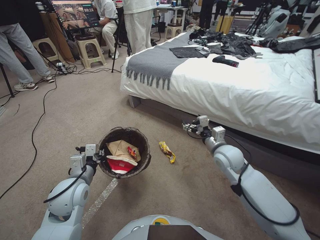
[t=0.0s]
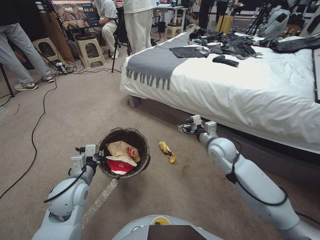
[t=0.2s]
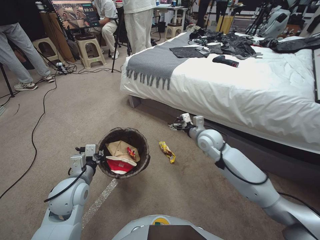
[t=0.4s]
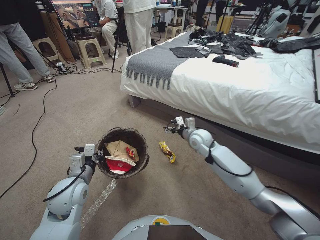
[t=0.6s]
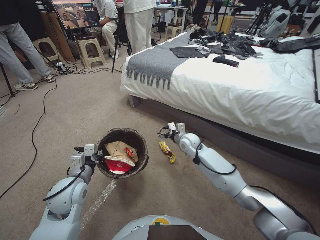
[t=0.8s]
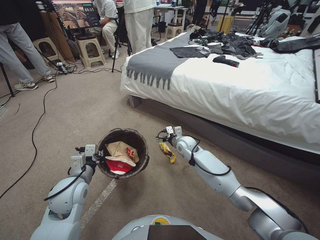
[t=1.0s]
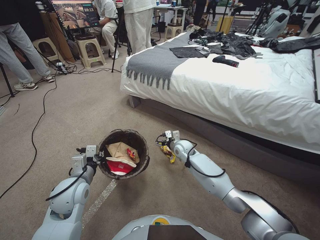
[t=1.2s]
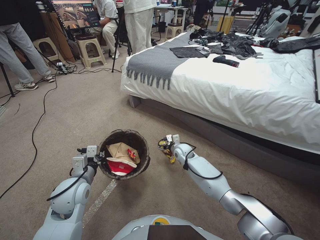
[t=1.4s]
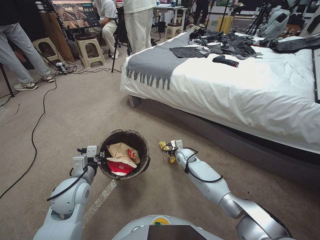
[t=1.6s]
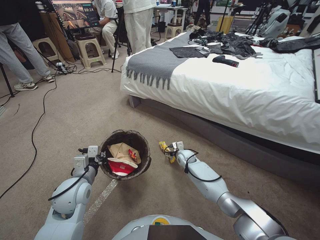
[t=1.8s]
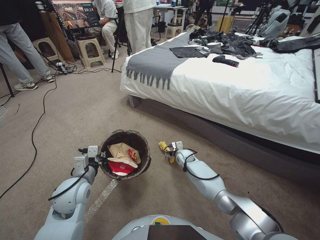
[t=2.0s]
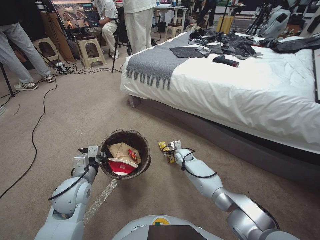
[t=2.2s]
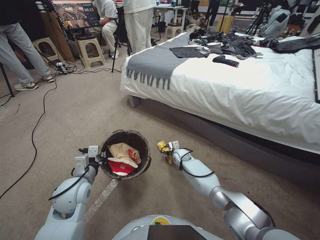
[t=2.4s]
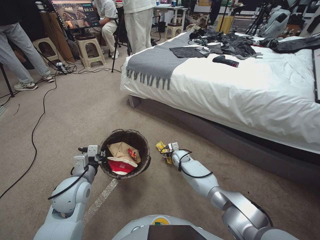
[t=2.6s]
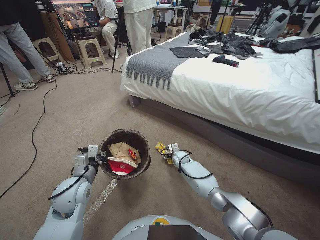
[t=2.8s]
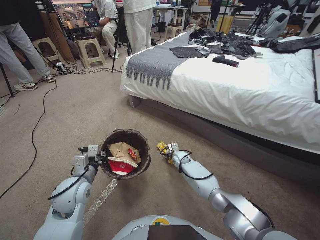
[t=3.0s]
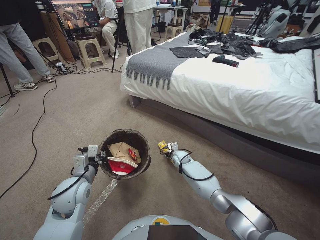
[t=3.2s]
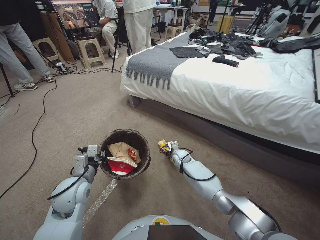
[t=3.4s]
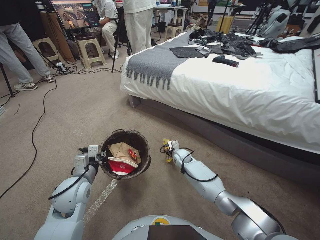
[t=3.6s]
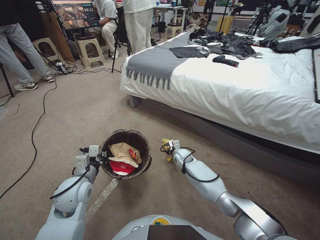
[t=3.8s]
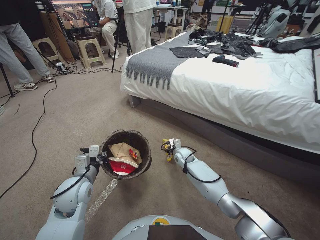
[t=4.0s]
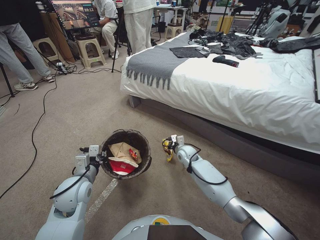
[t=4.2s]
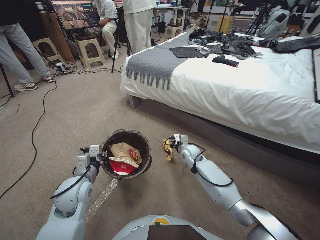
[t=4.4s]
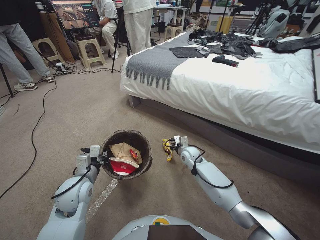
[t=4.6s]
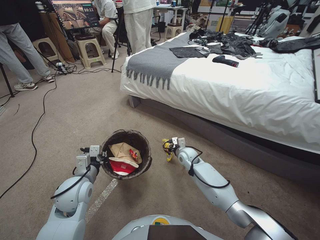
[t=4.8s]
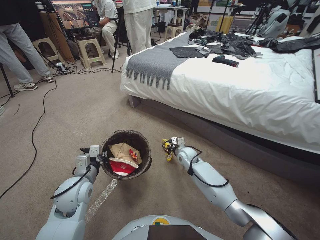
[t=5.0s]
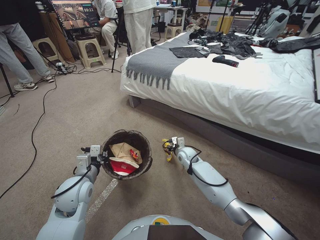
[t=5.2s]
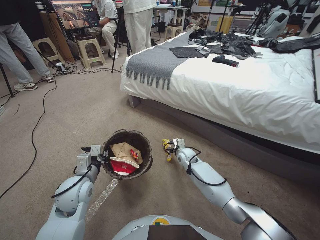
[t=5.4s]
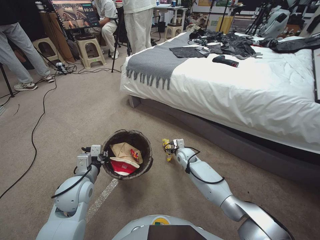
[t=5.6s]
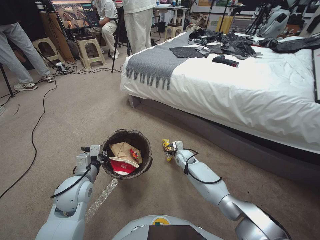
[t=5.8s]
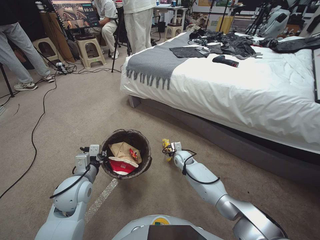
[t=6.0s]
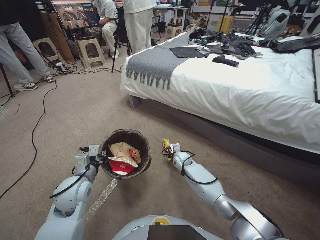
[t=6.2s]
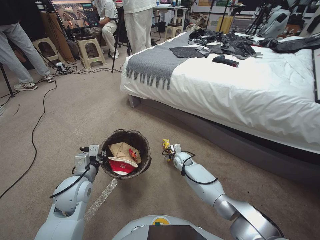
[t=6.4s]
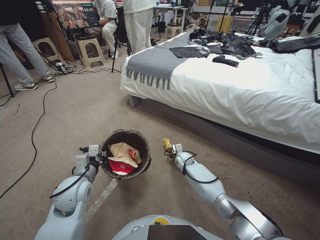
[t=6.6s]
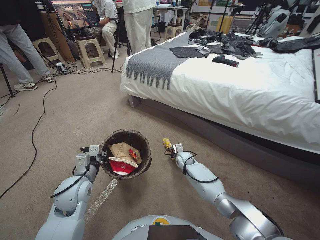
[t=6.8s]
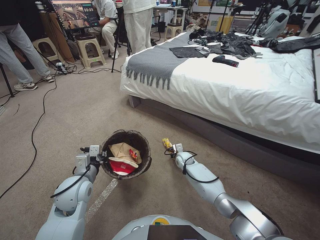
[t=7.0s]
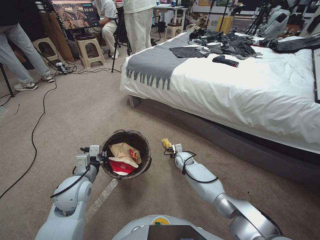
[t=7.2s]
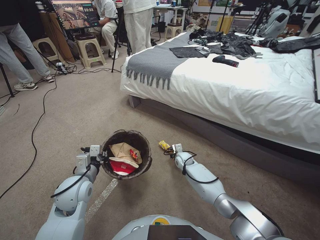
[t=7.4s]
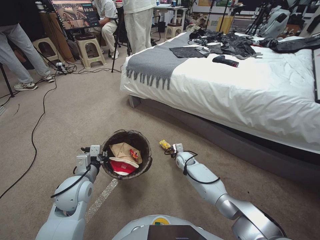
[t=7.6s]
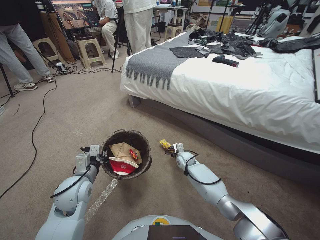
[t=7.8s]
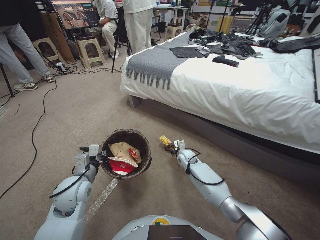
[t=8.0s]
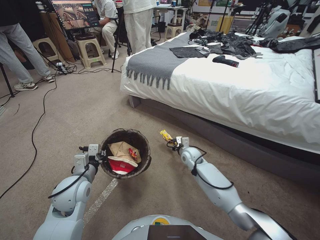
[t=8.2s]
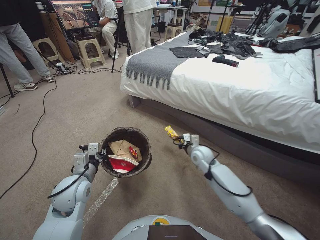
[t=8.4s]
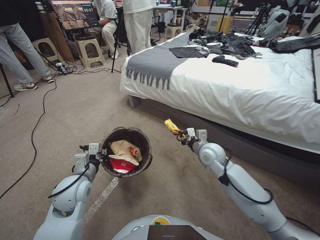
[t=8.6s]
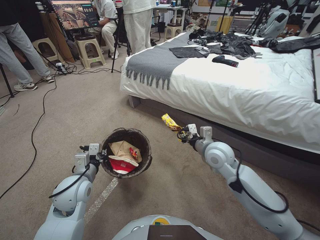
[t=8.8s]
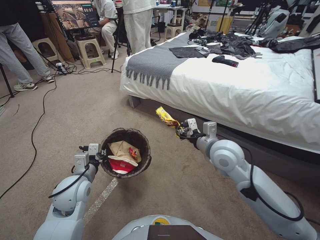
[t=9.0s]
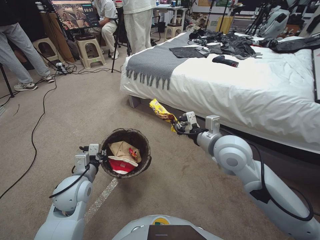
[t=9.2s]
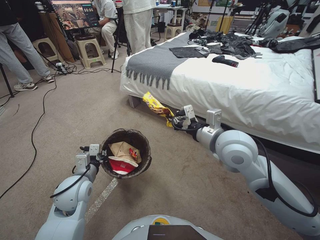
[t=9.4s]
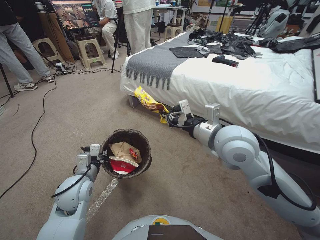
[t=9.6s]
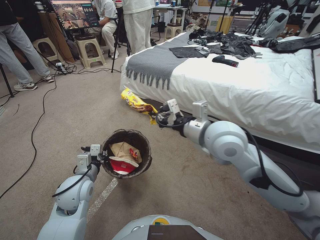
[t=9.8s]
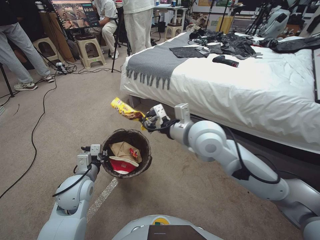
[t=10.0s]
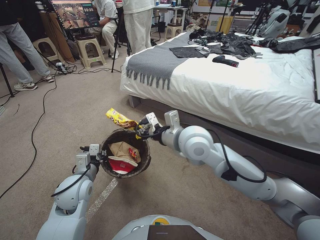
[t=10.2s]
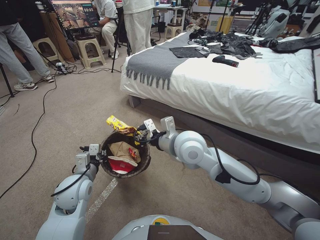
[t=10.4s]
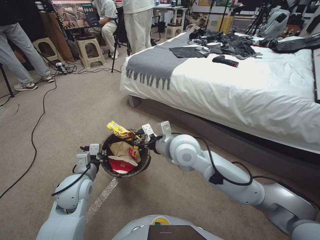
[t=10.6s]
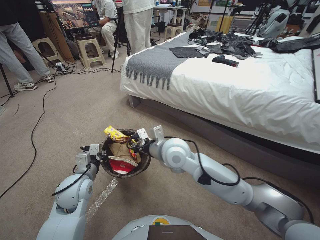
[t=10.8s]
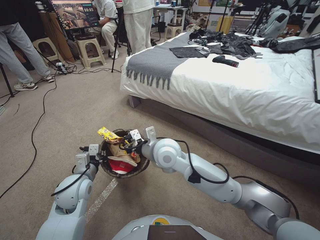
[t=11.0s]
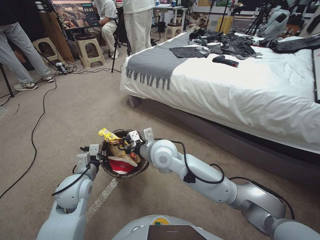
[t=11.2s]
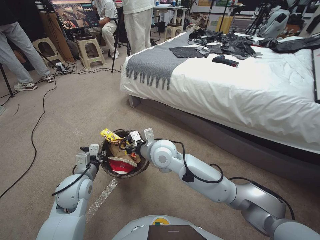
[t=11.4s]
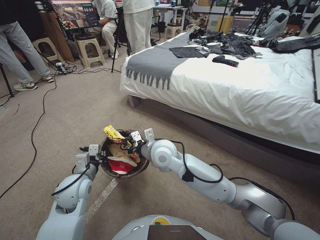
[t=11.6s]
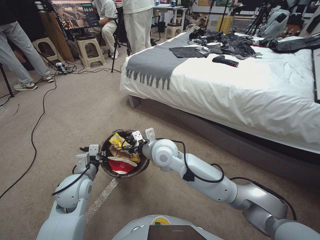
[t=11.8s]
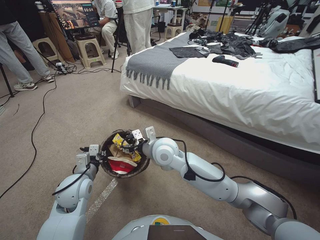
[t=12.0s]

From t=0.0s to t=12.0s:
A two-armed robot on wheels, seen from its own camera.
Task of the whole recording: Pick up the trash bin, then pick up the garbage from the floor and place it into the trash bin.
From t=0.0s to t=1.6s: The right gripper heads downward, forward and to the left, covering roughly 25 cm.
From t=1.6s to t=3.0s: The right gripper heads downward, covering about 5 cm.
From t=3.0s to t=4.4s: The right gripper shifts about 10 cm upward, and closes up.
From t=4.4s to t=6.0s: The right gripper is displaced downward by approximately 5 cm, and opens.
From t=6.0s to t=7.6s: The right gripper closes.
From t=7.6s to t=9.0s: The right gripper travels upward and backward by roughly 30 cm.
From t=9.0s to t=10.4s: The right gripper moves to the left and upward, roughly 15 cm.
From t=10.4s to t=12.0s: The right gripper is displaced downward and to the left by roughly 10 cm, and opens up.

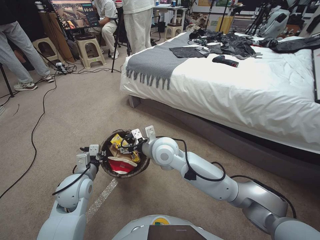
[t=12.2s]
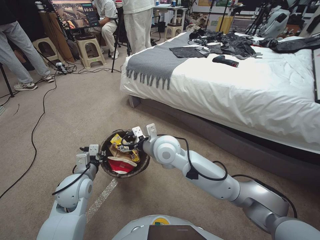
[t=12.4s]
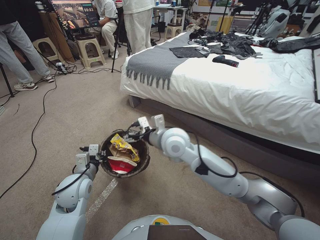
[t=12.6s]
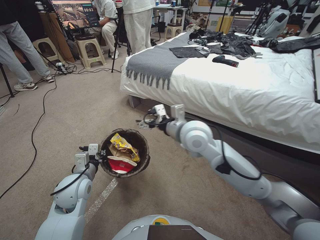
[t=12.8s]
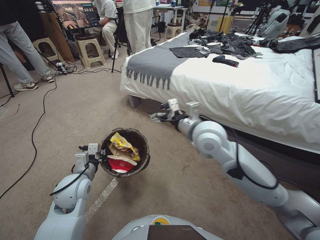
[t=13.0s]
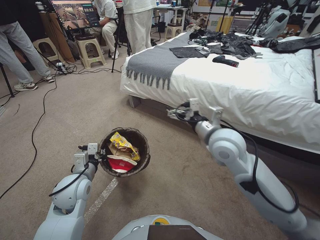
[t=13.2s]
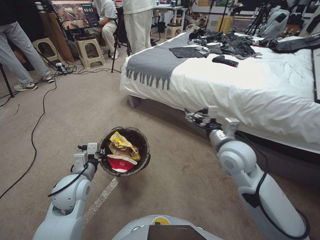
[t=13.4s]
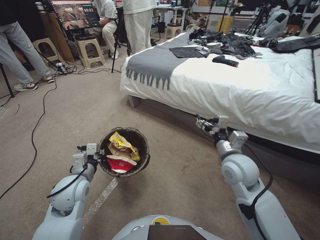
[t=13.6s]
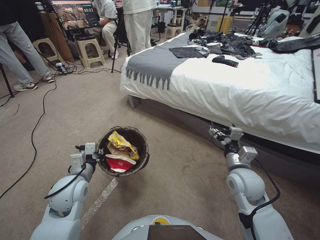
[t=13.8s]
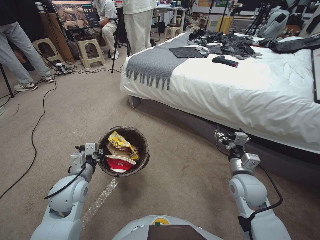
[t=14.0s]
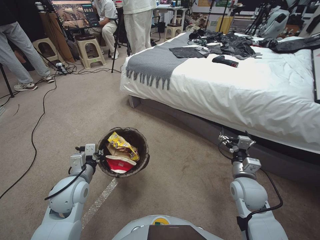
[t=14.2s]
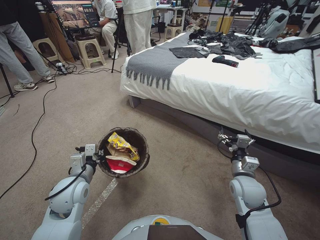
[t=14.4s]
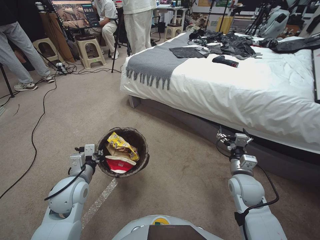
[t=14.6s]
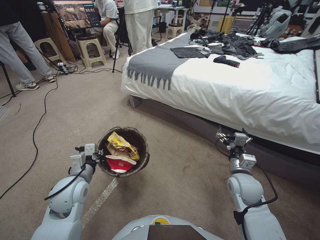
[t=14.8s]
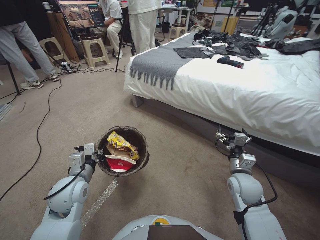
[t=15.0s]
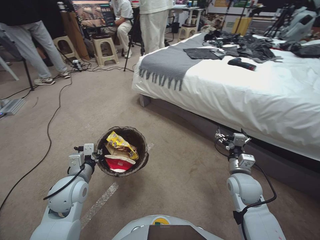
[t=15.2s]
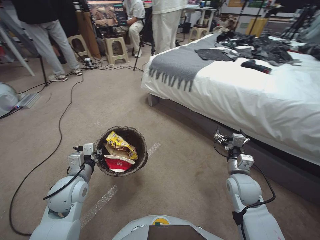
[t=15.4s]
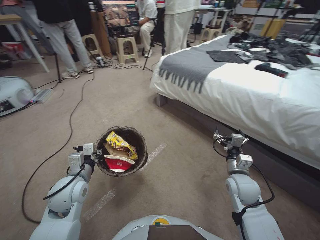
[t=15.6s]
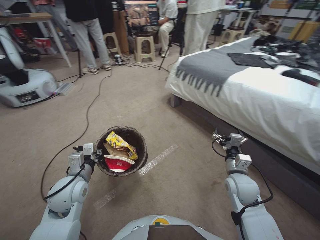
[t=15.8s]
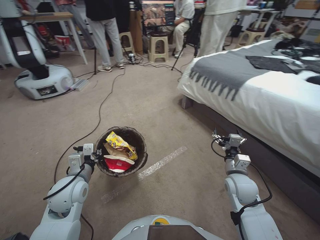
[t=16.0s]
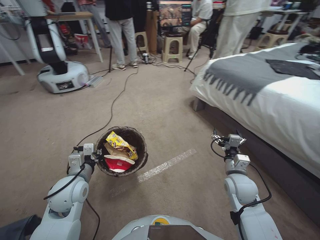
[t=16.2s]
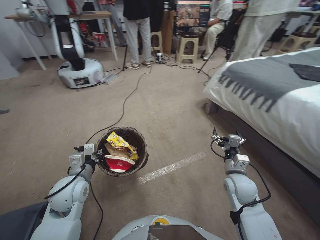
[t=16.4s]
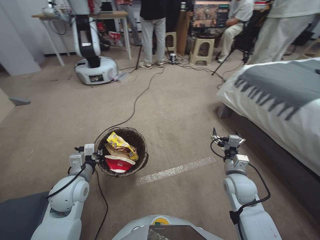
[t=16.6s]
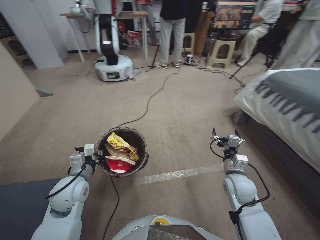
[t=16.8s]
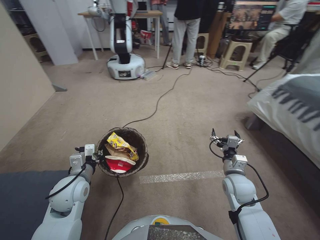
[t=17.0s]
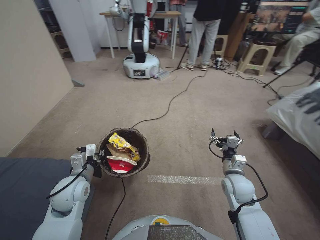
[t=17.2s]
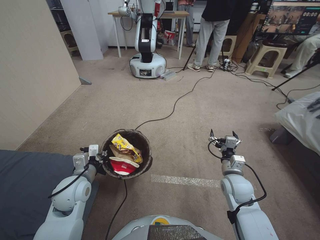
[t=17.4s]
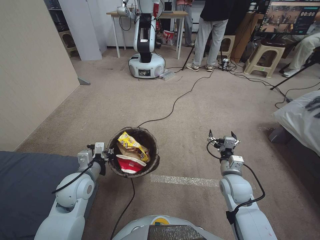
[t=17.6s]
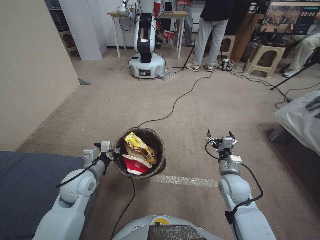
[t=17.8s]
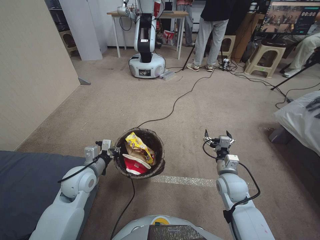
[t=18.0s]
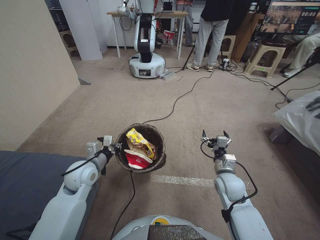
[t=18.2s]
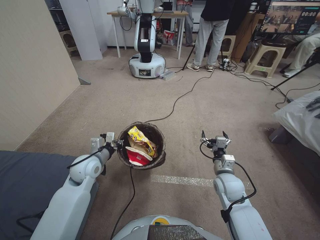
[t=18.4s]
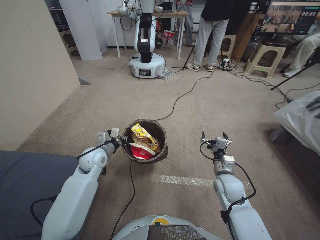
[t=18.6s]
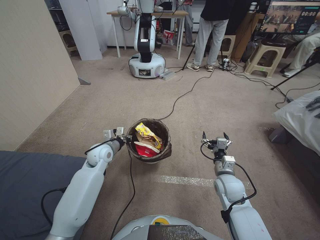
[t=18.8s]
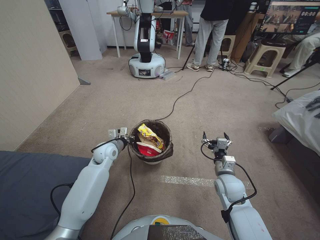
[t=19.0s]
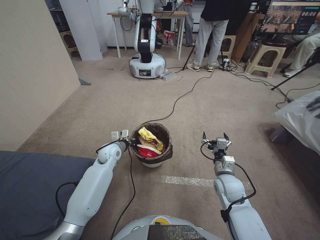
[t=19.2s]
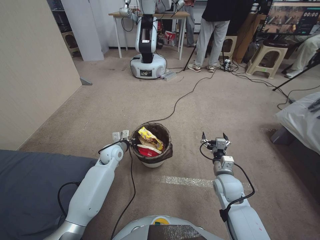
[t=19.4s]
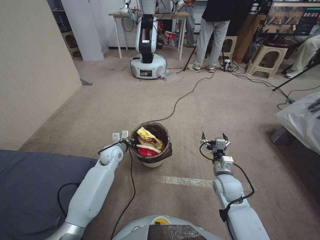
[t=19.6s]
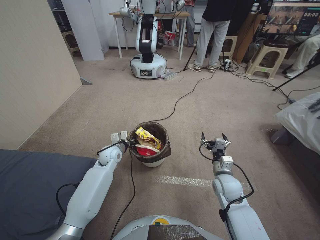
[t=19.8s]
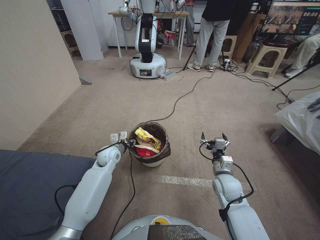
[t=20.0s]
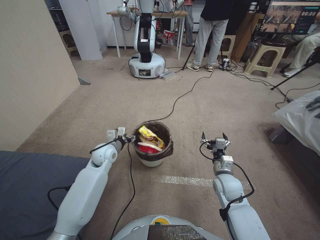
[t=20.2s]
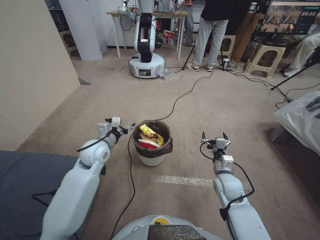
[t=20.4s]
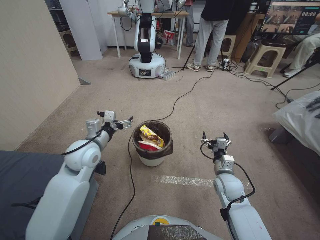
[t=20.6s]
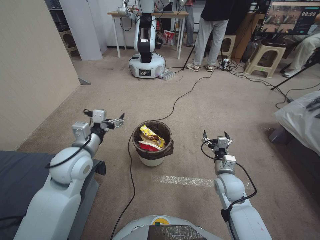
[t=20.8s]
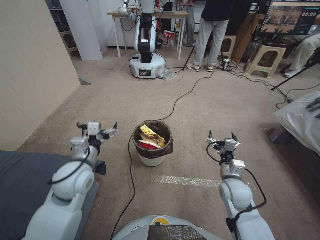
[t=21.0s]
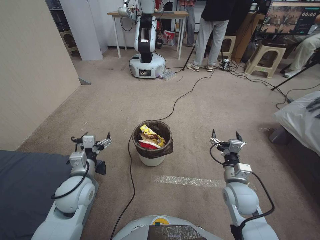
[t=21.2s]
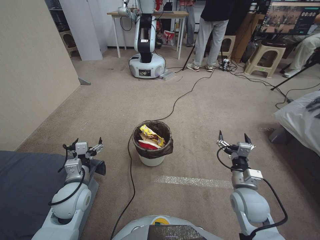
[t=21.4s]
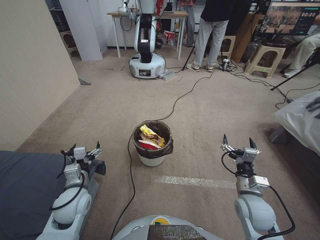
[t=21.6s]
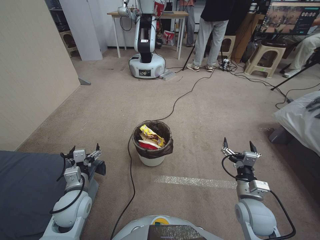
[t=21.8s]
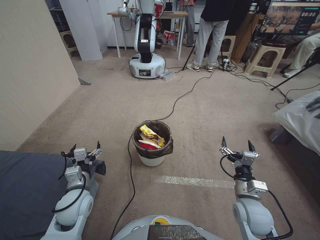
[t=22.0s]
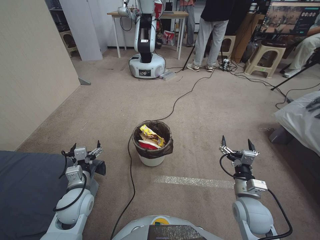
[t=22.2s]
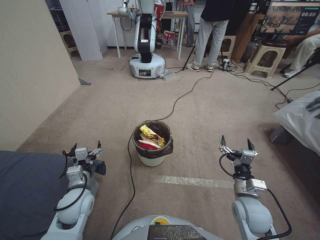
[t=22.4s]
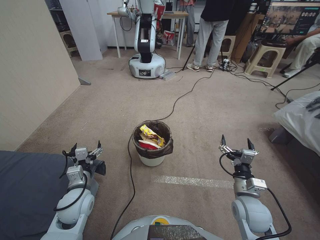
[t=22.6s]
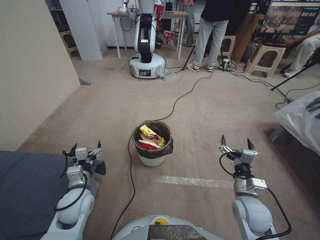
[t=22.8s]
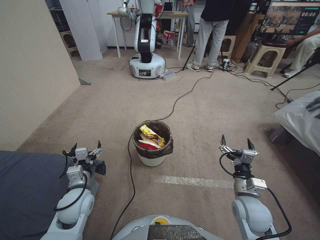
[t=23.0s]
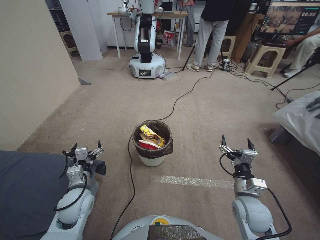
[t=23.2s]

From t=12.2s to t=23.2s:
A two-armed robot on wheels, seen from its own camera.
Task of the whole recording: Pick up the trash bin, then pick up the garbage from the floor and place it into the trash bin.
From t=12.2s to t=13.8s: The right gripper goes roughly 25 cm to the right.
From t=13.8s to t=15.4s: The right gripper heads downward, covering some 5 cm.
From t=17.0s to t=18.4s: The left gripper moves forward, some 10 cm.
From t=18.4s to t=20.0s: The left gripper shifts some 10 cm forward and downward.
From t=20.0s to t=21.6s: The right gripper is displaced backward by roughly 10 cm. Meanwhile the left gripper moves backward, approximately 20 cm, and opens up.
From t=21.6s to t=23.2s: The grippers stay close to where they were, moving slightly.
